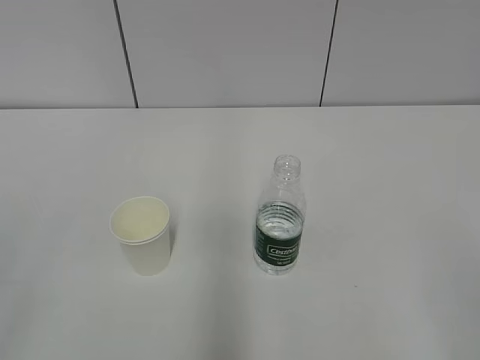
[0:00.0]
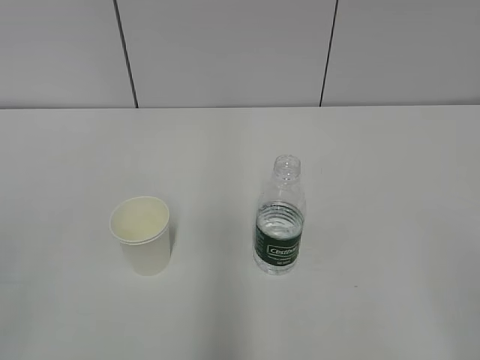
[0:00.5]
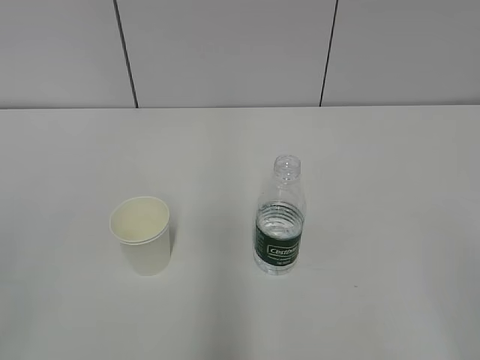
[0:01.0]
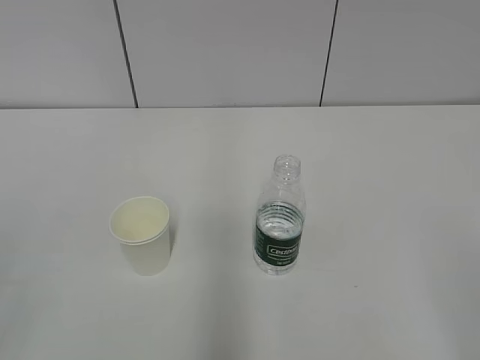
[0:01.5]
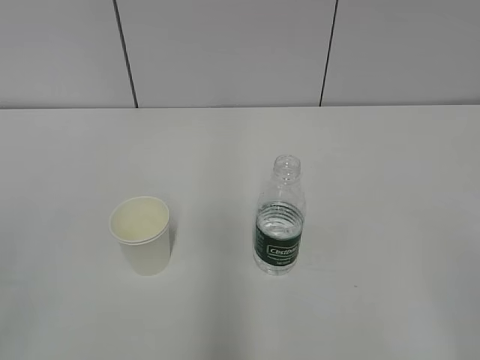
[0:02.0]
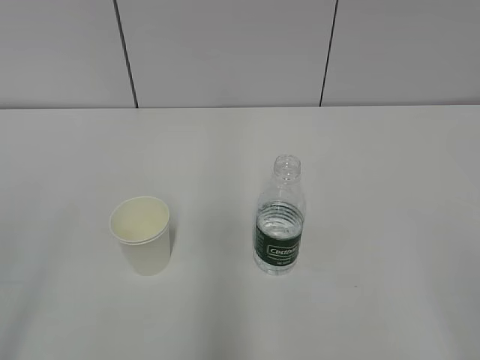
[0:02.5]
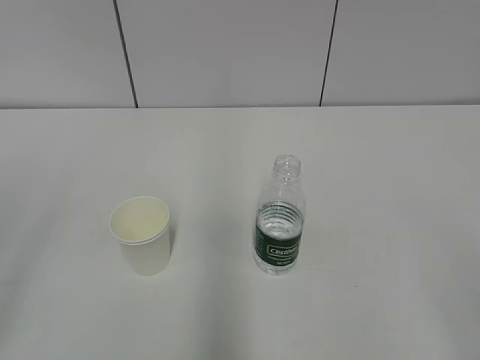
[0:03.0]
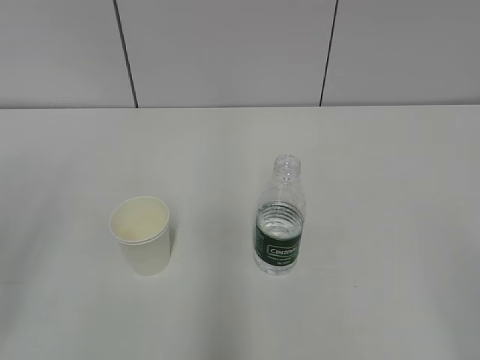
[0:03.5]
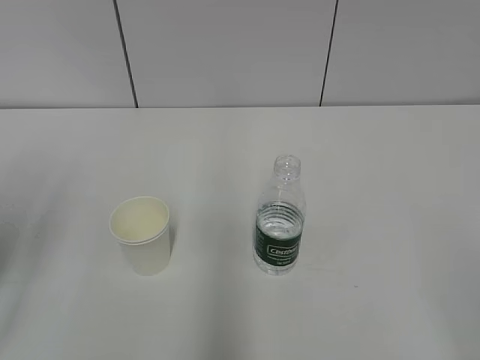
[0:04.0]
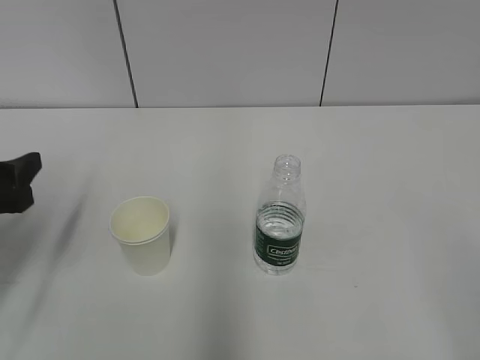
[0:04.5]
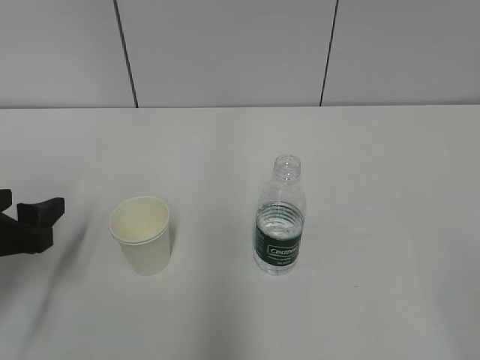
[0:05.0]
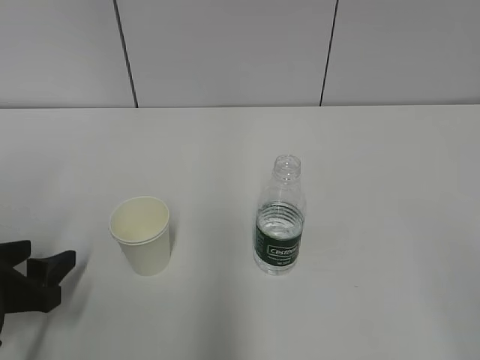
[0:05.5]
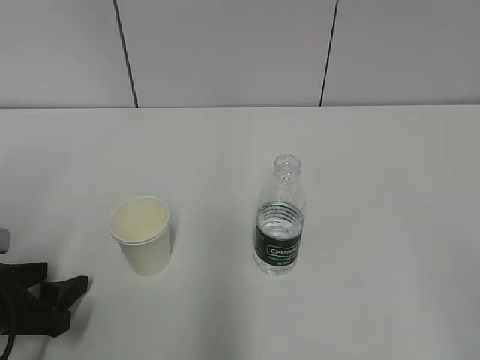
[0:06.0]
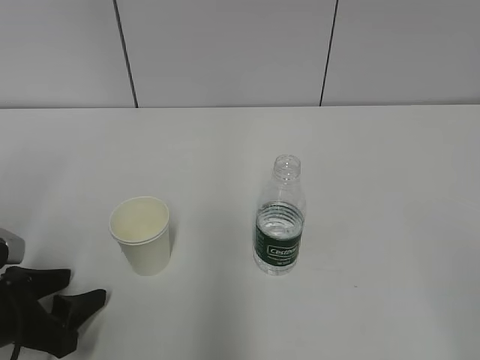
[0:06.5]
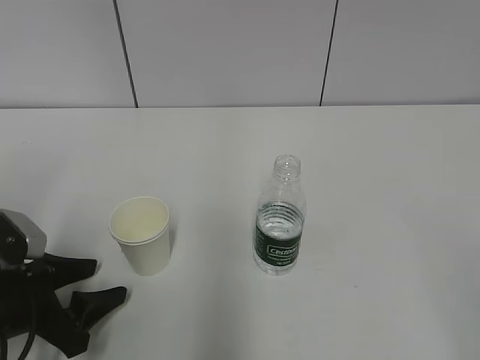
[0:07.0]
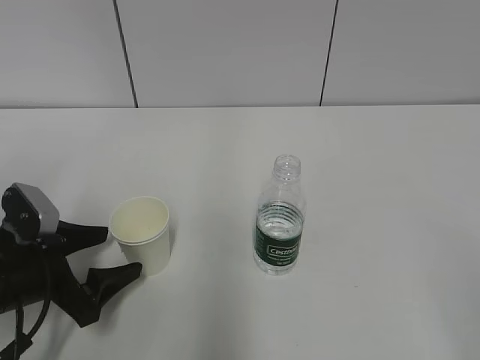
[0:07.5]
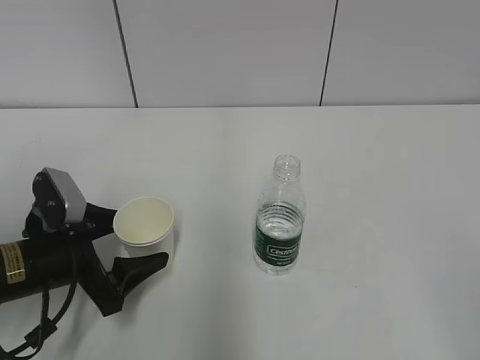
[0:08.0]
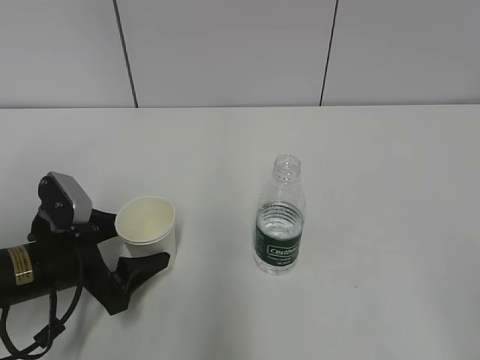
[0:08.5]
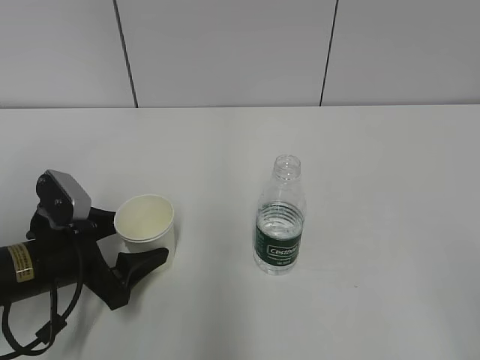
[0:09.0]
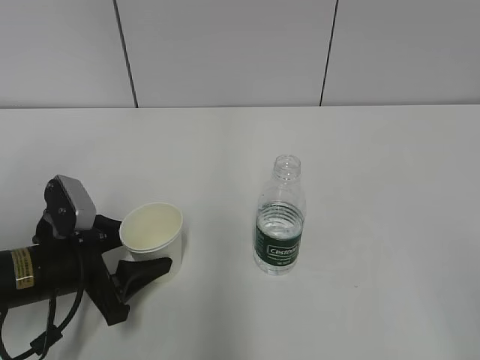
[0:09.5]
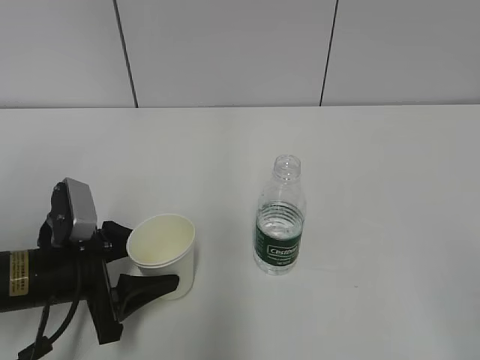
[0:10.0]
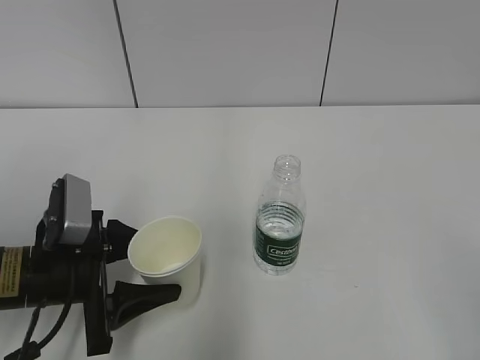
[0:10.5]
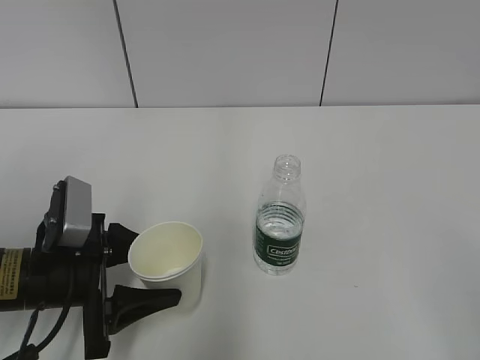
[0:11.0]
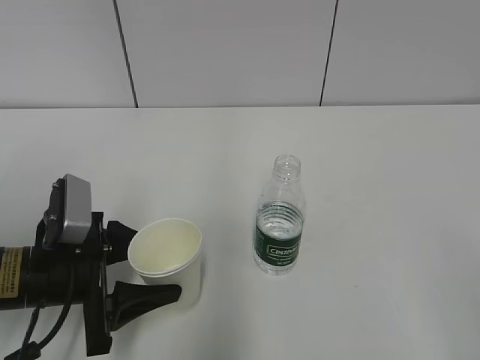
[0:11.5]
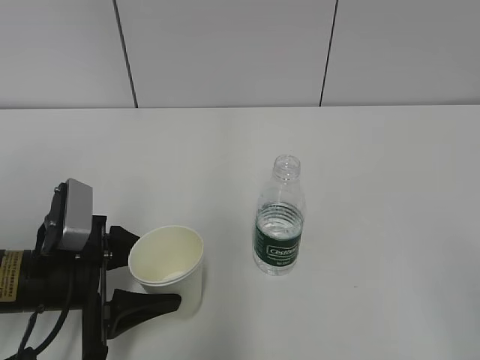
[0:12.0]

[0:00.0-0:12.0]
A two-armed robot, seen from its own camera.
Step, 0:00.0 to 0:07.5: Grab the paper cup with the left hand.
0:04.0 to 0:06.0: The left gripper moves downward, some 20 cm.
0:06.0 to 0:08.0: The left gripper goes approximately 10 cm to the right and forward.
0:08.0 to 0:10.0: The left gripper closes its fingers.
0:10.0 to 0:12.0: The grippers stay close to where they were, moving slightly.

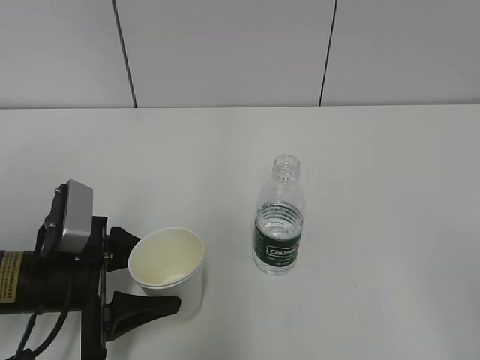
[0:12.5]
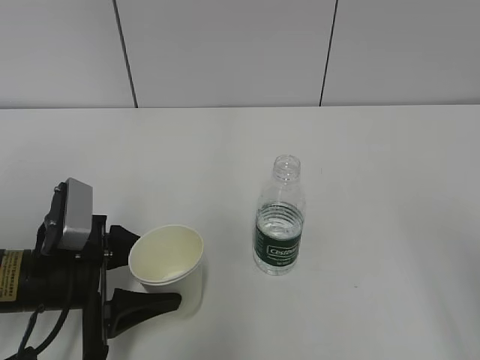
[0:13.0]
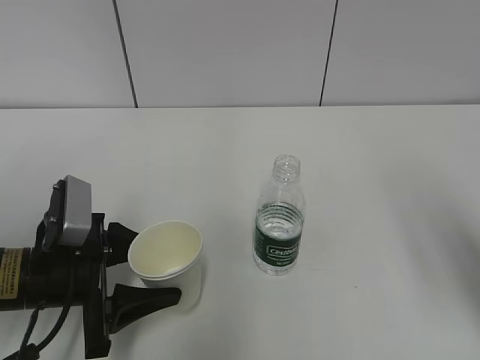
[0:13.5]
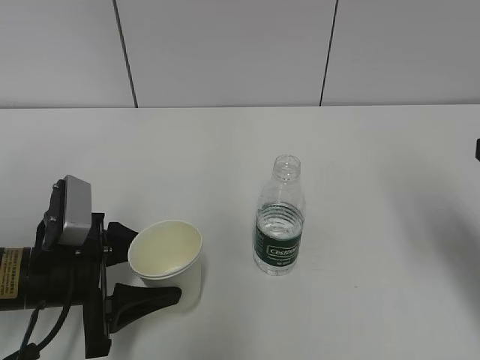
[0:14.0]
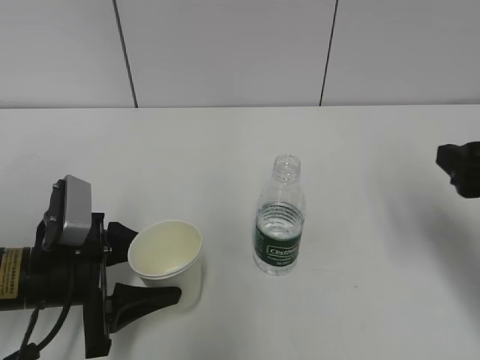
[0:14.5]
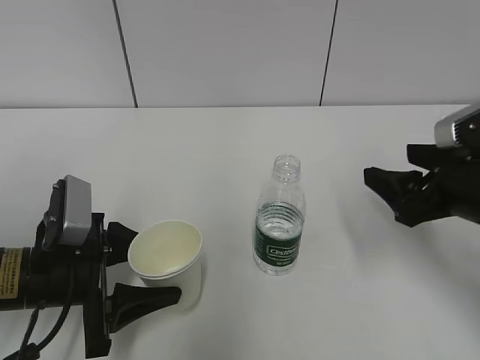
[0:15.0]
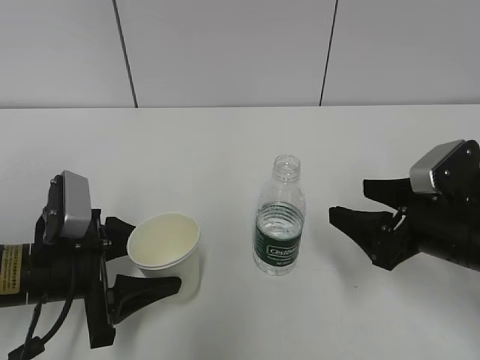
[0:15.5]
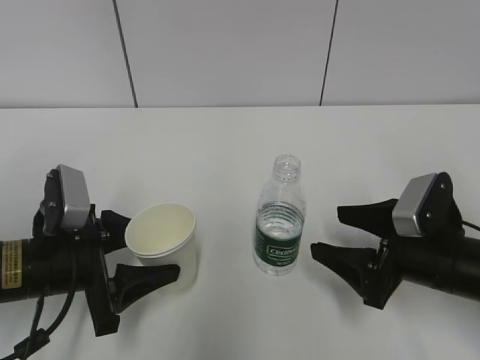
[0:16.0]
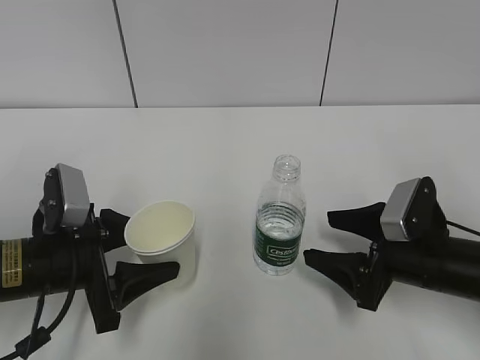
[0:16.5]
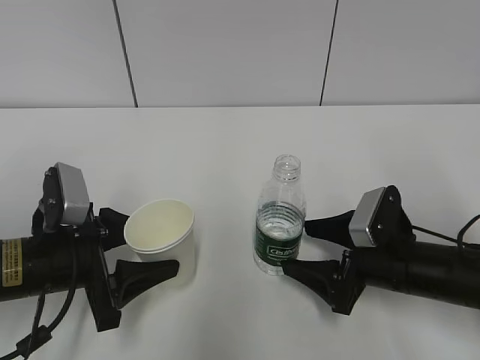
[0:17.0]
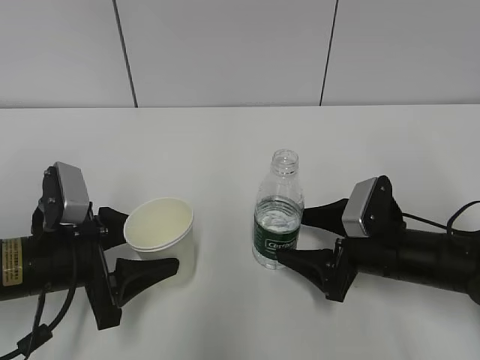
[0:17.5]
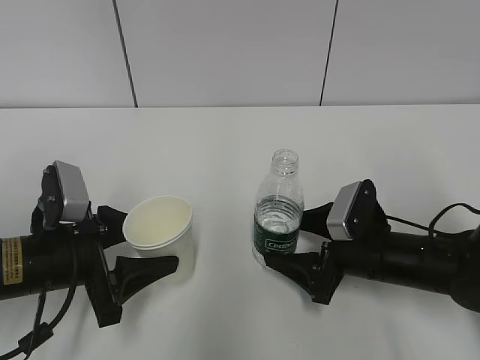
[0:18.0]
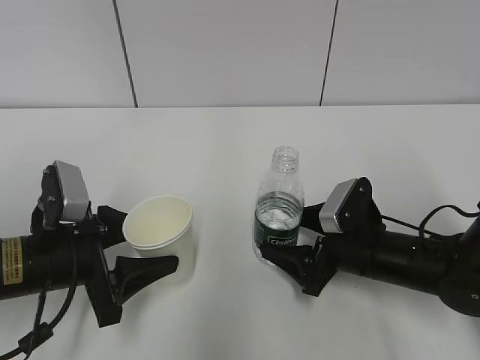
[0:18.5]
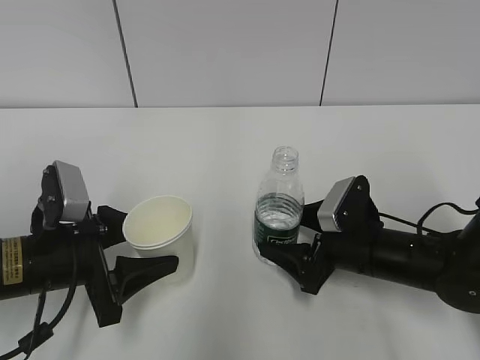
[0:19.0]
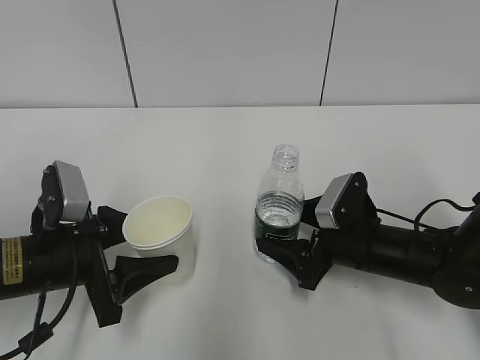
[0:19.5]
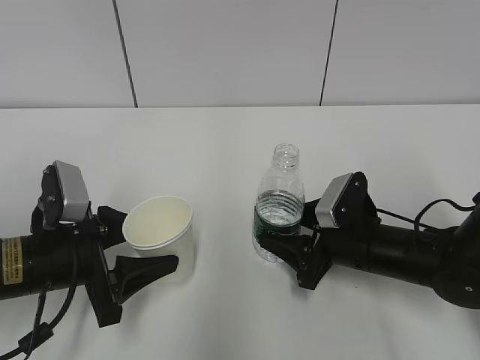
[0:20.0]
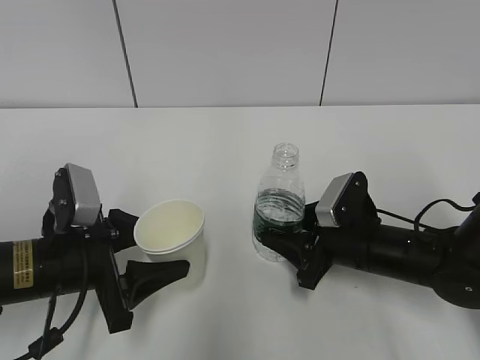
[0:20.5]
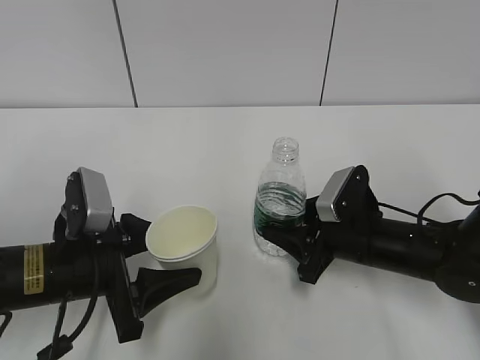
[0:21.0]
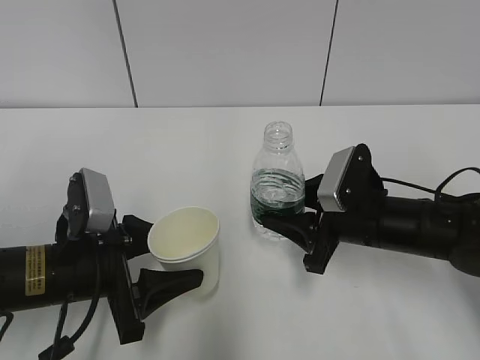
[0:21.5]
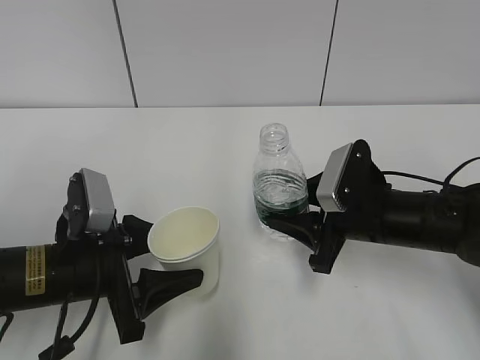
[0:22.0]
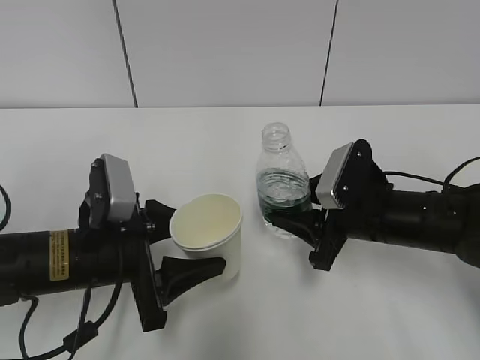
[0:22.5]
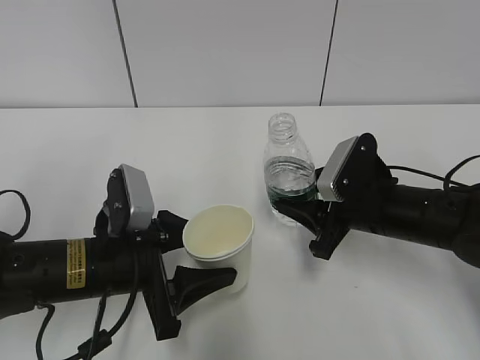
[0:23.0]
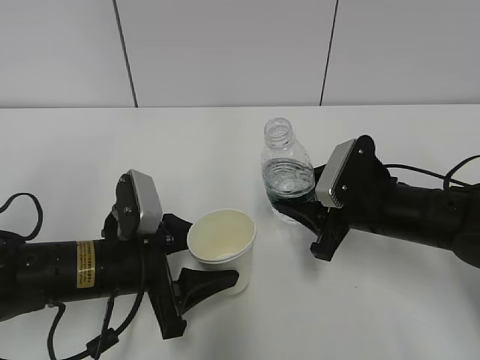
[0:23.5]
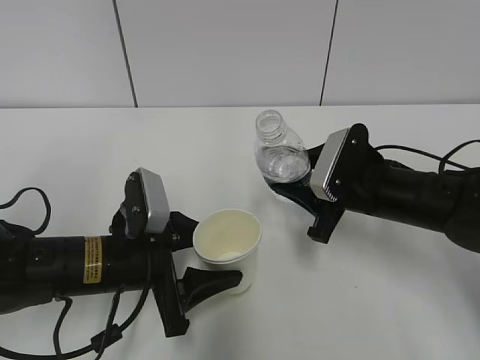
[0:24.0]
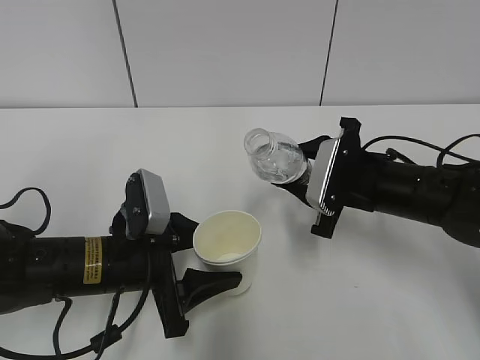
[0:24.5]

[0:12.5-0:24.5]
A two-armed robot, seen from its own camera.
Step, 0:12.5 to 0:16.5: Grab the water bottle with the right hand.
Step, 0:17.0 to 0:23.0: Lift the paper cup with the left hand.
0:12.5 to 0:14.5: The right gripper is displaced forward by about 25 cm.
0:14.5 to 0:16.5: The right gripper heads downward and to the left, covering about 15 cm.
0:16.5 to 0:18.5: The right gripper changes place by about 5 cm.
0:18.5 to 0:20.5: The right gripper closes.
0:20.5 to 0:22.5: The right gripper travels upward by some 5 cm.

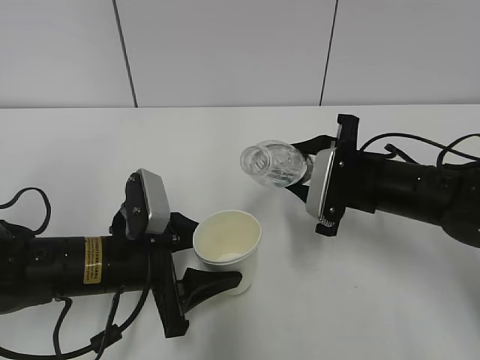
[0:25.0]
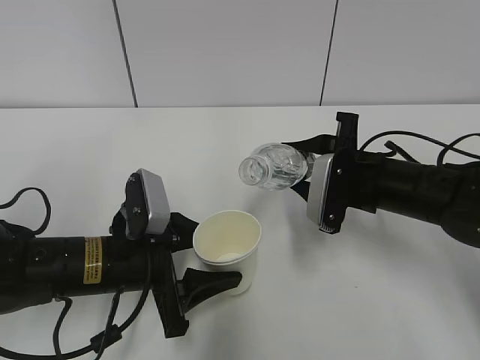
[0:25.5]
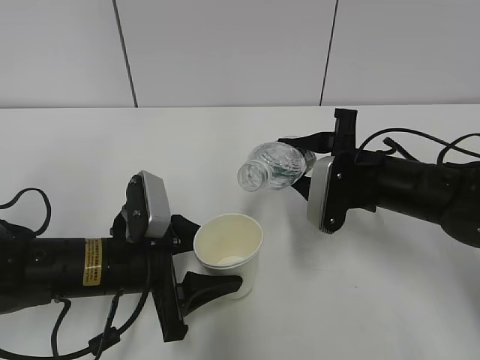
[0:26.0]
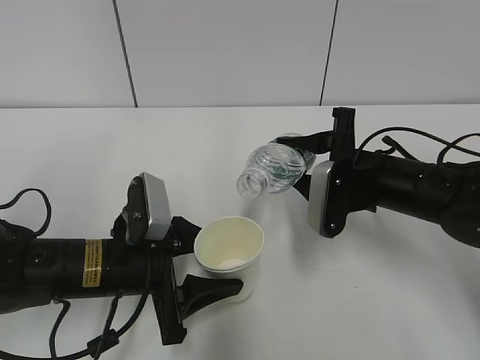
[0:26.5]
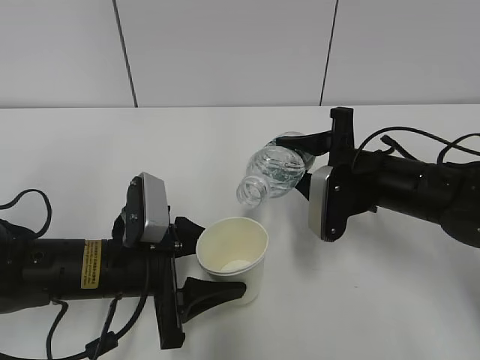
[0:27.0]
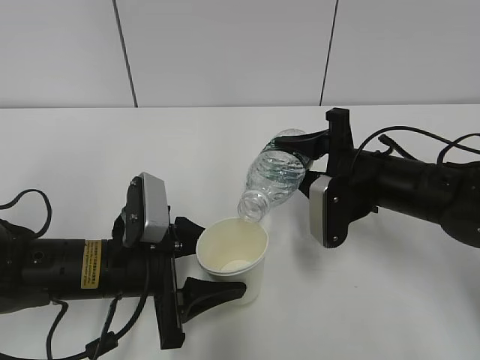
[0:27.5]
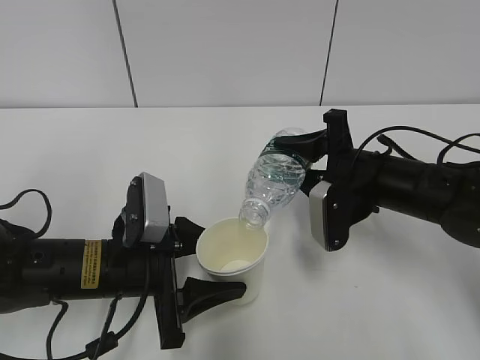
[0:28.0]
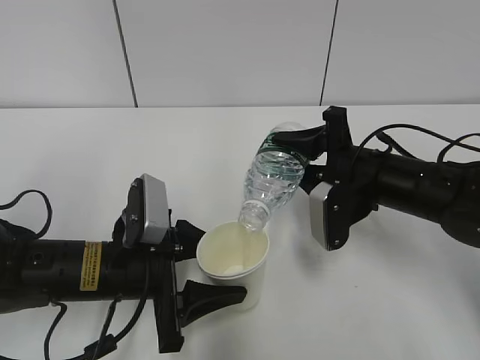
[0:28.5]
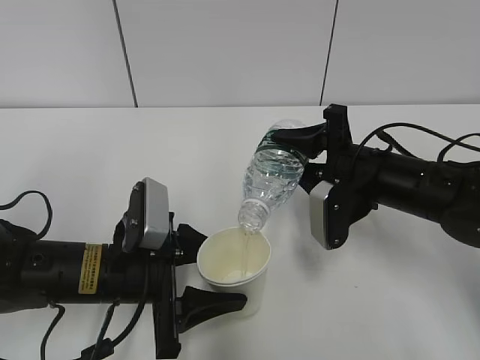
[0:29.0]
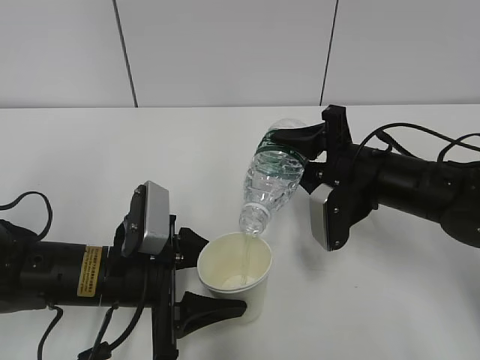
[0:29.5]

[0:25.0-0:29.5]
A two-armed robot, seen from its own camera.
Step, 0:25.0 to 0:29.5: Fill water with the left hand.
Step, 0:25.0 to 0:29.5: Pour water with the right hand.
0:27.0 to 0:29.5: The grippers stay close to where they were, moving slightly.
